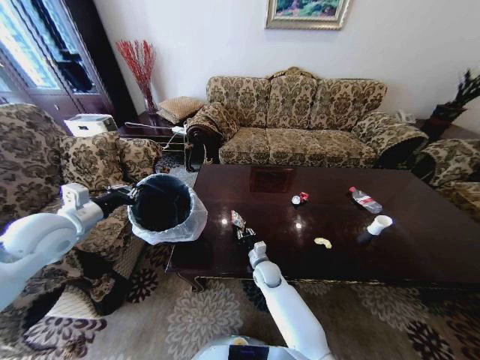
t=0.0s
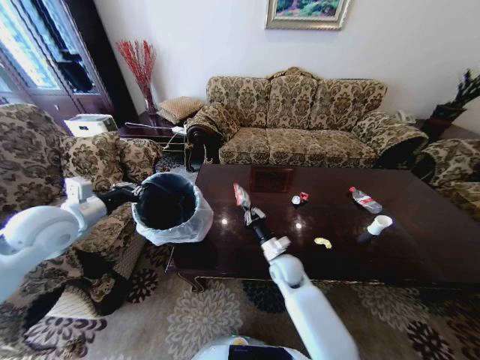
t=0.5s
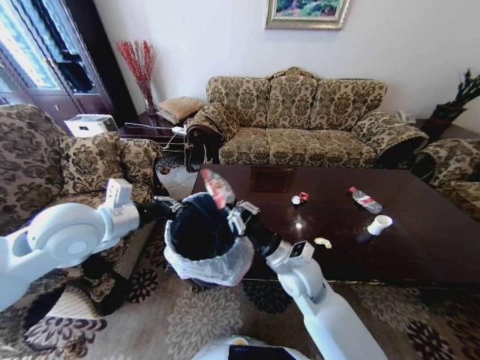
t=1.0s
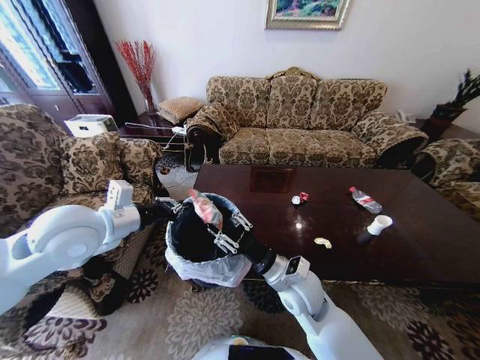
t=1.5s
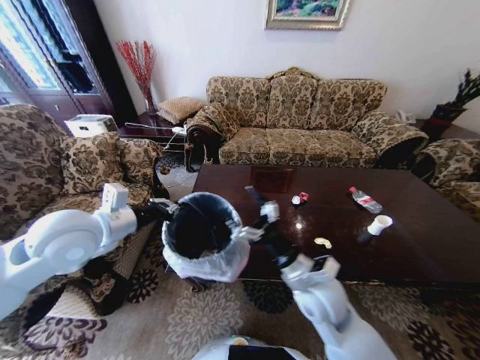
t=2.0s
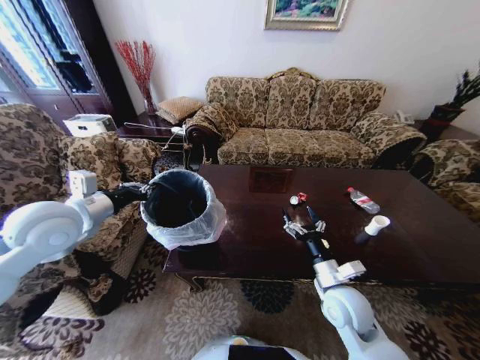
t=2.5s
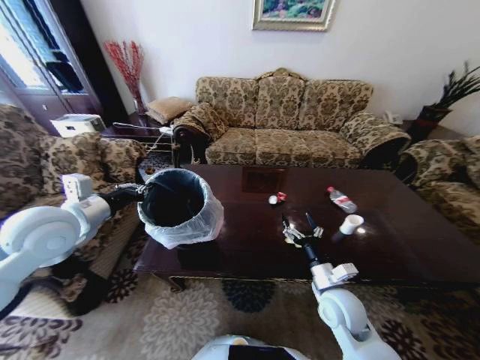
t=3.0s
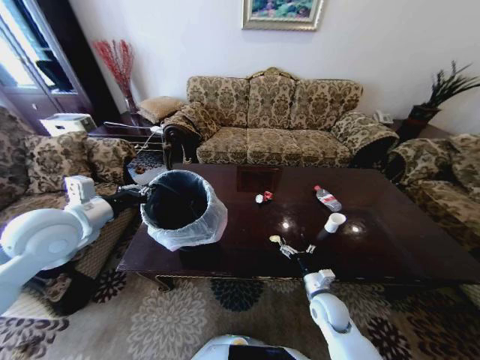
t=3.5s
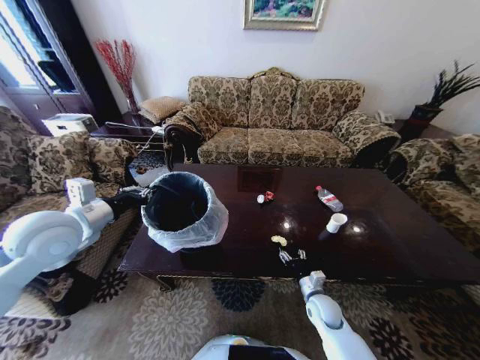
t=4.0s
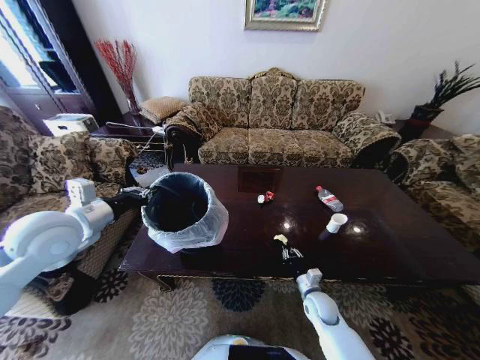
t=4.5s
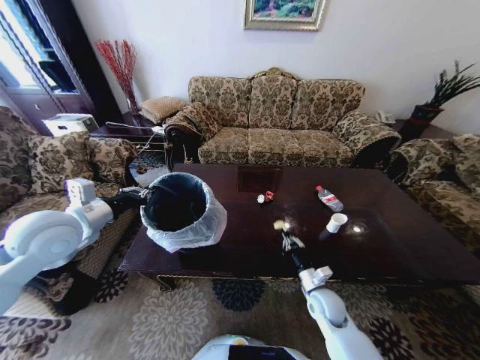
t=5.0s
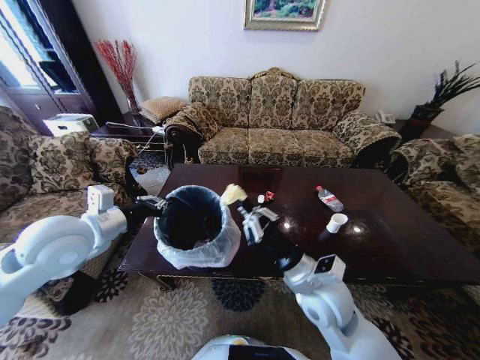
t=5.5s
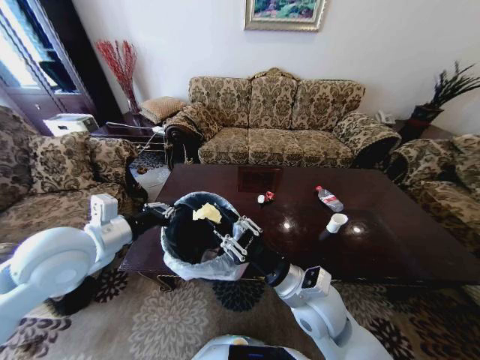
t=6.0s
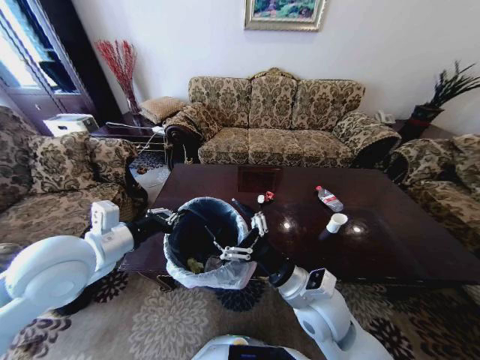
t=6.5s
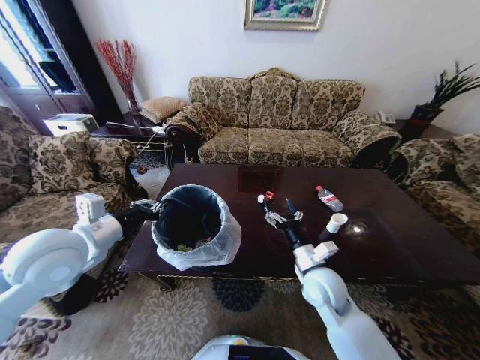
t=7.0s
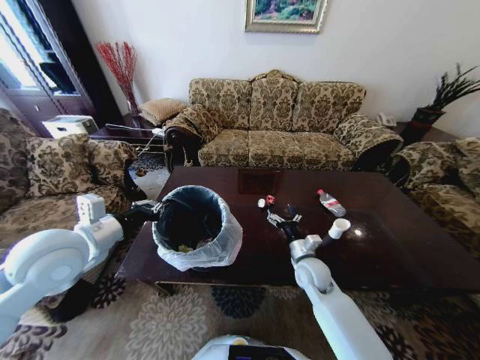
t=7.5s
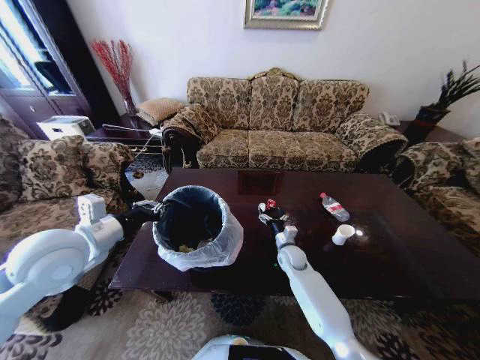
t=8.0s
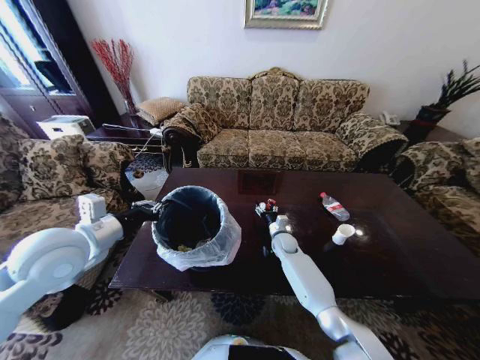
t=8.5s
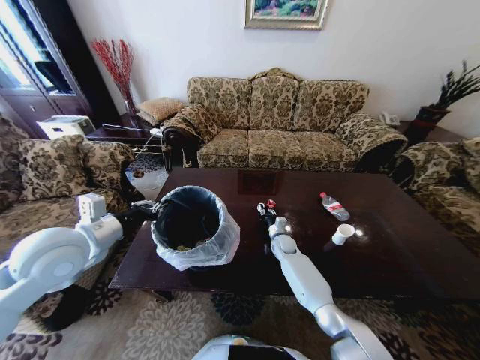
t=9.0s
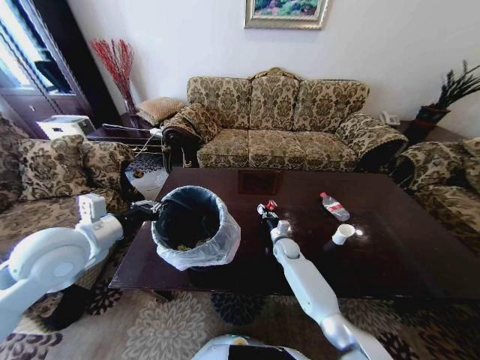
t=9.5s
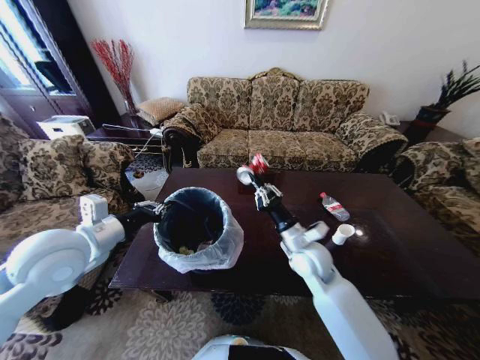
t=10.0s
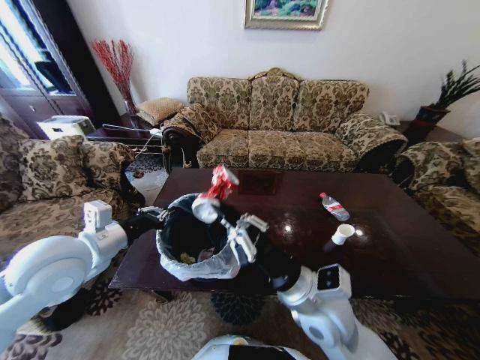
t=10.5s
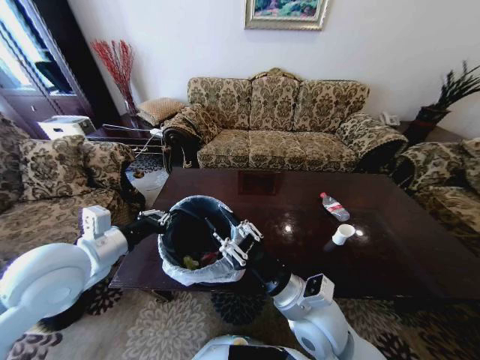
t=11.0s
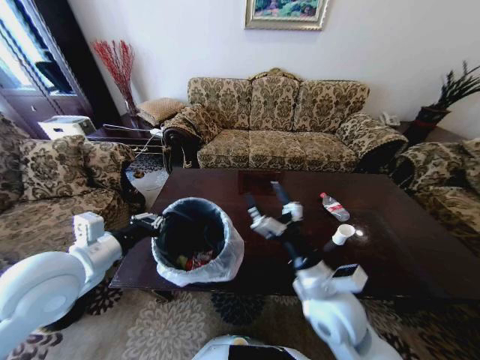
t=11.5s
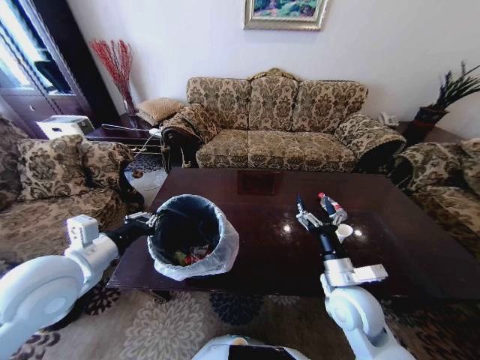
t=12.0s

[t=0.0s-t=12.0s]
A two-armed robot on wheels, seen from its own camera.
Task of the whole recording: Move to the front of the table and place the trash on the table into the trash bin.
t=0.0s to t=2.0s: The left gripper goes about 10 cm to the right, while the right gripper is displaced upward and backward by approximately 25 cm, and opens.
t=2.0s to t=4.0s: The right gripper moves downward and to the right, approximately 25 cm; the left gripper is displaced to the left by some 5 cm.
t=4.0s to t=6.0s: The left gripper is displaced to the right by roughly 5 cm; the right gripper moves upward and to the left, some 25 cm, and closes, then reopens.
t=6.0s to t=8.0s: The right gripper heads forward and downward, covering some 30 cm, and opens its fingers.
t=8.0s to t=10.0s: The right gripper goes approximately 20 cm upward and backward, and closes its fingers.
t=10.0s to t=12.0s: The right gripper travels backward and to the right by some 10 cm, and opens its fingers.

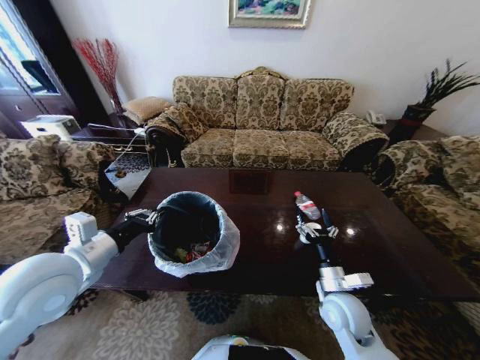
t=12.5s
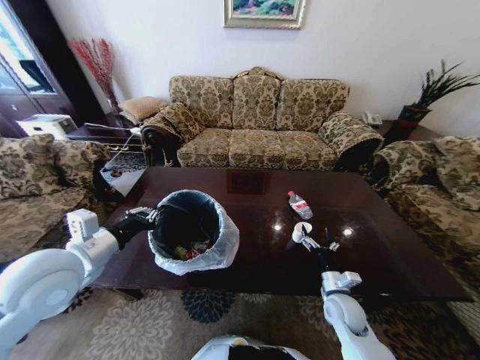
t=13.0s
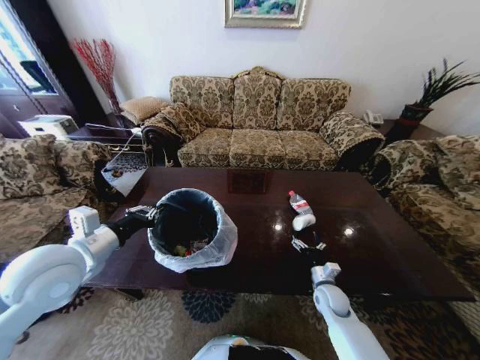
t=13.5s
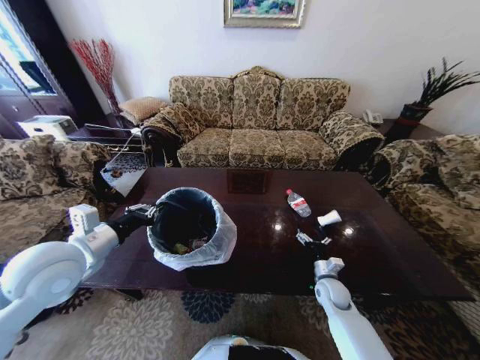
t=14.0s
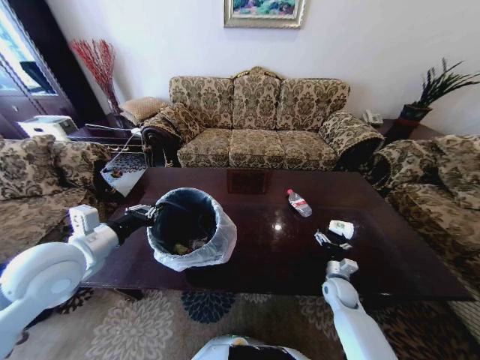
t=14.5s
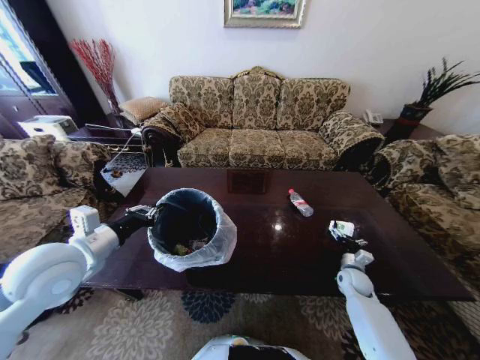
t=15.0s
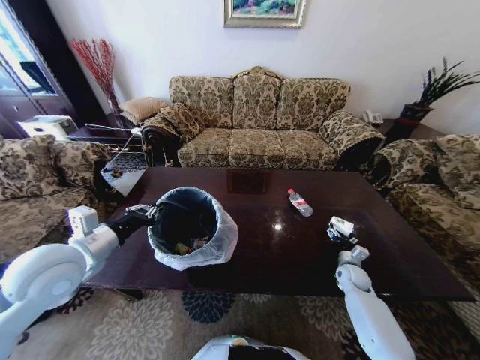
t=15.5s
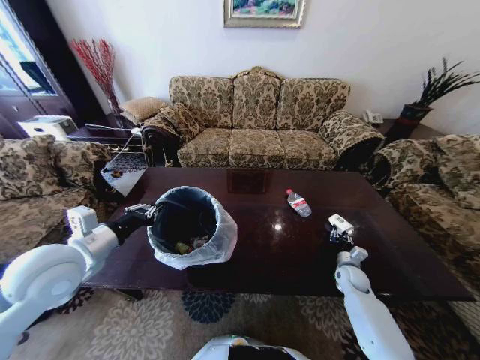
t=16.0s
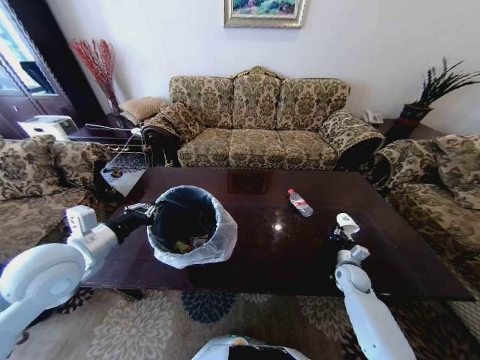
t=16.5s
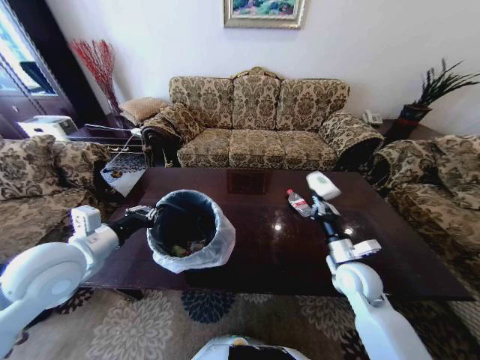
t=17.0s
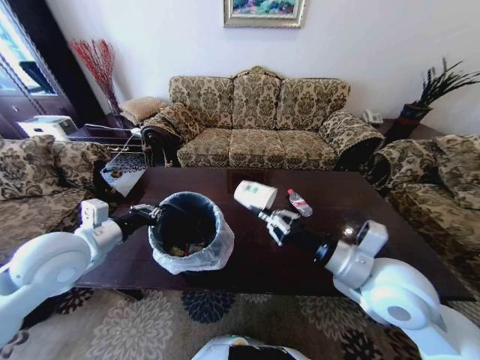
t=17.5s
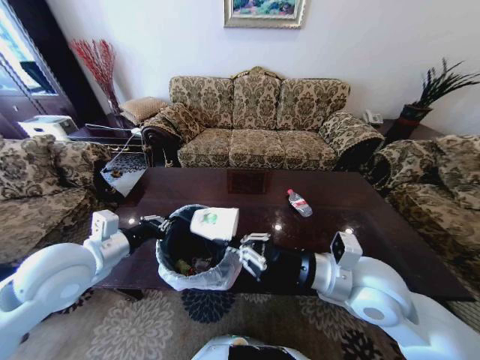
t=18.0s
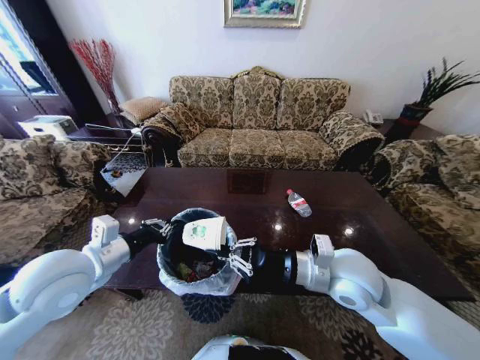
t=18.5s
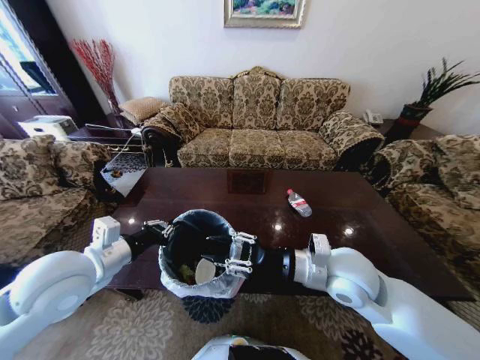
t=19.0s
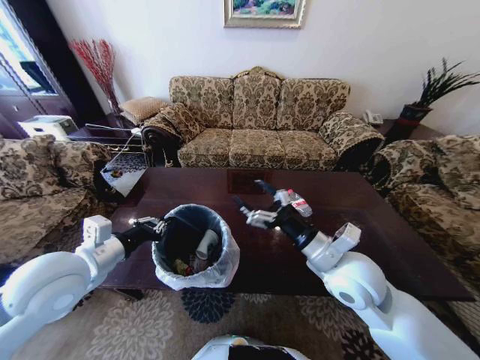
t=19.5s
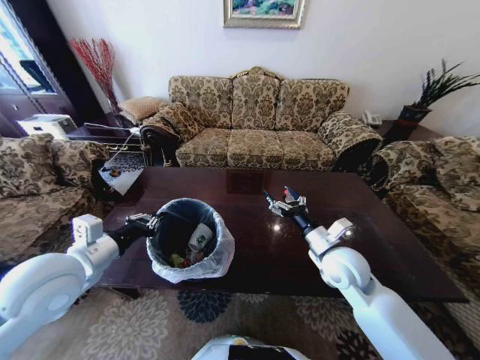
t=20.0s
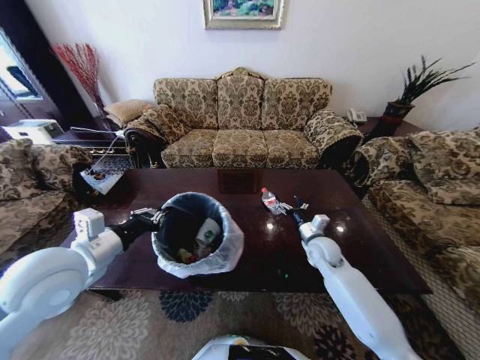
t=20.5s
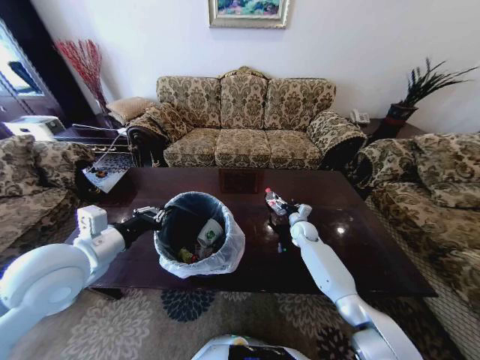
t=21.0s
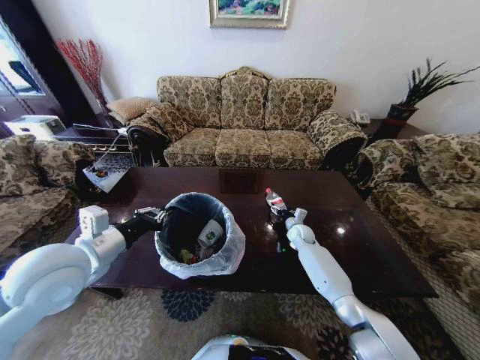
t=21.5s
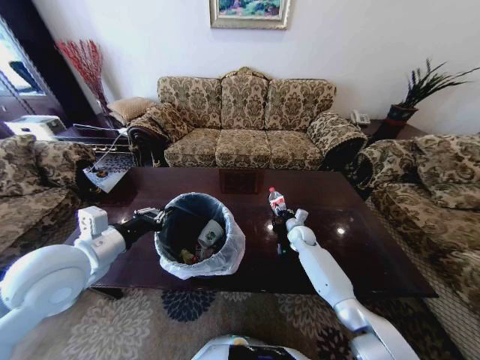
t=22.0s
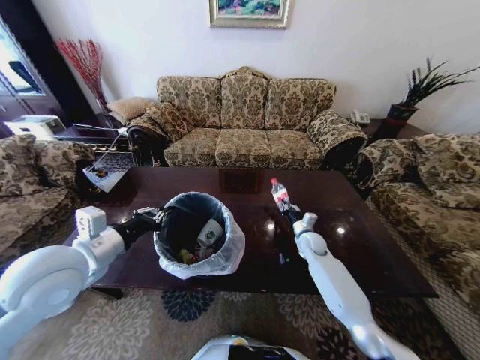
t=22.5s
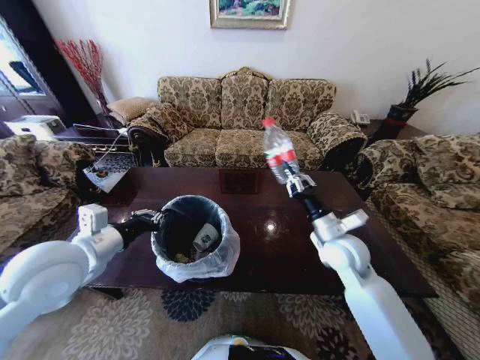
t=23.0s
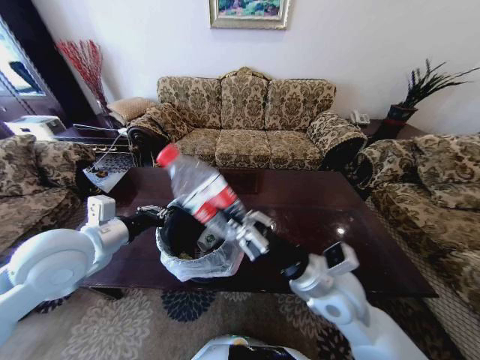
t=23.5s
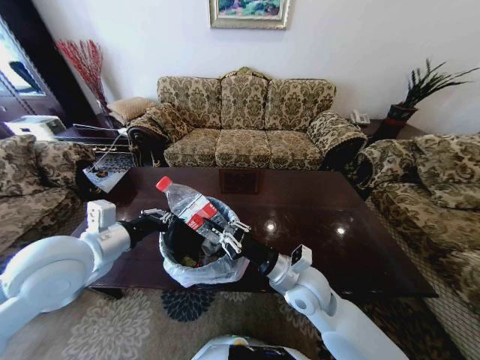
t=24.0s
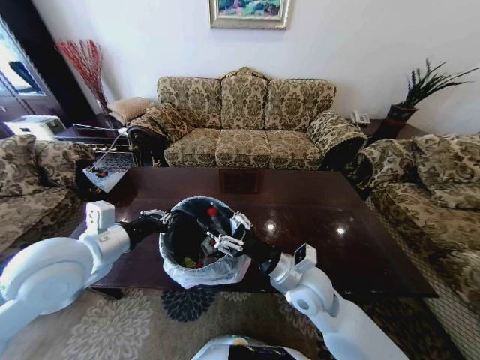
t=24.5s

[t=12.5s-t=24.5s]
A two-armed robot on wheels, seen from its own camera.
Task of the whole recording: Move to the front of the table and place the trash on the table into the trash bin.
t=12.5s to t=14.5s: The right gripper shifts about 20 cm downward, forward and to the right.
t=14.5s to t=16.5s: The right gripper is displaced to the right by roughly 5 cm, and closes.
t=16.5s to t=18.5s: The right gripper shifts some 35 cm upward and to the left.
t=18.5s to t=20.5s: The right gripper is displaced downward and forward by roughly 25 cm, and opens.
t=20.5s to t=22.5s: The right gripper heads downward and forward, covering approximately 10 cm, and closes.
t=22.5s to t=24.5s: The right gripper goes about 30 cm backward, upward and to the left, and opens.

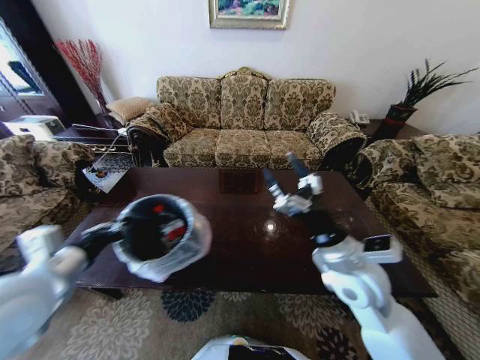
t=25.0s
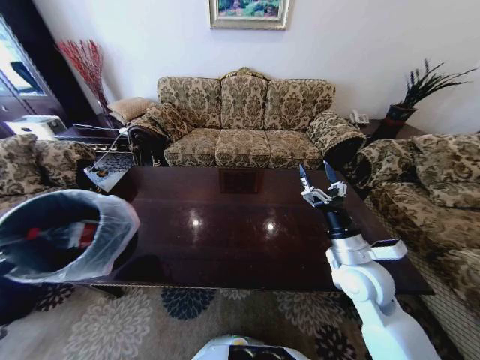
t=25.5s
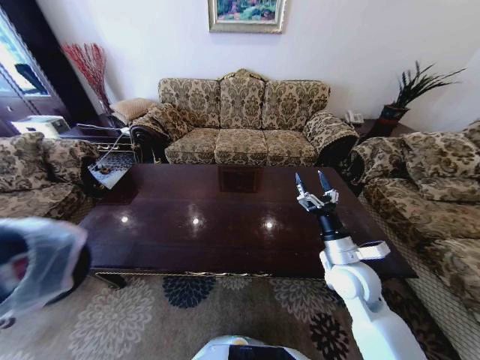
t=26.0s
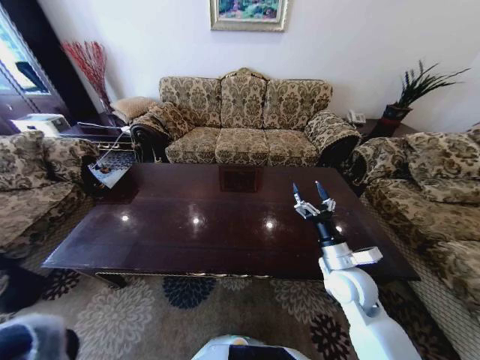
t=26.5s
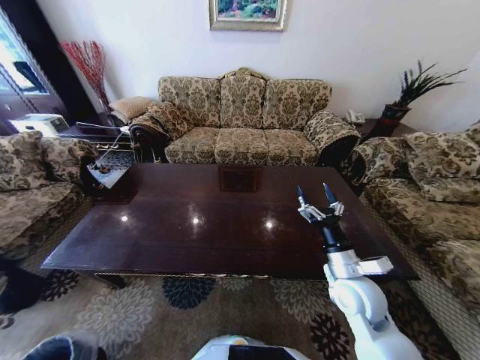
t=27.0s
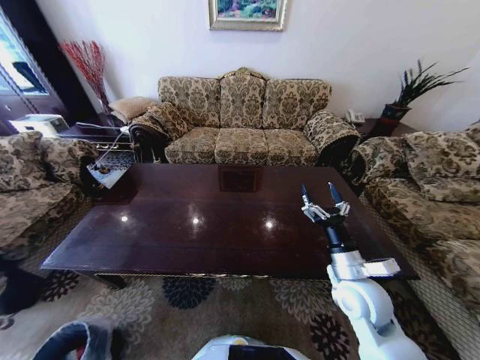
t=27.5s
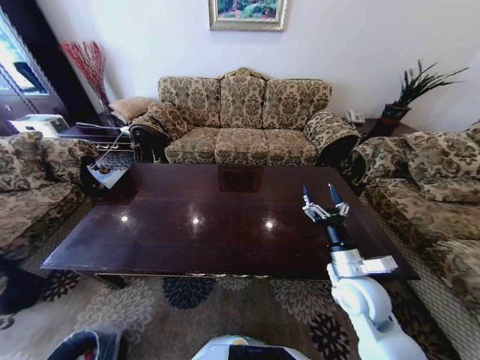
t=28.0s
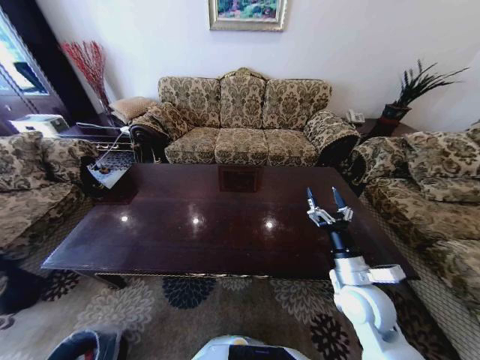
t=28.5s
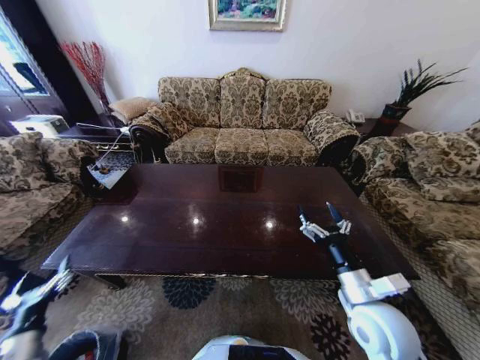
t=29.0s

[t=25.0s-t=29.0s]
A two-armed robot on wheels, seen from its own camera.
Task of the whole recording: Move to the front of the table and place the trash on the table into the trash bin.
t=25.0s to t=27.0s: The right gripper heads downward, covering approximately 10 cm, while the left gripper shifts some 50 cm downward and to the left.
t=27.0s to t=29.0s: The left gripper moves upward and to the right, approximately 25 cm, and opens up, while the right gripper goes some 5 cm backward.
